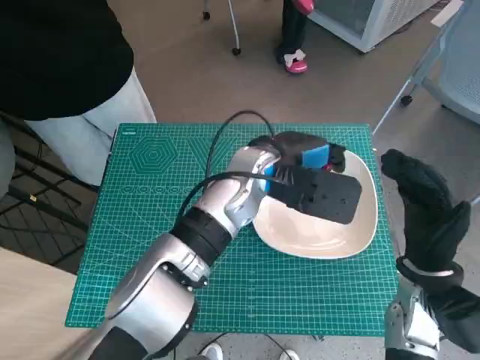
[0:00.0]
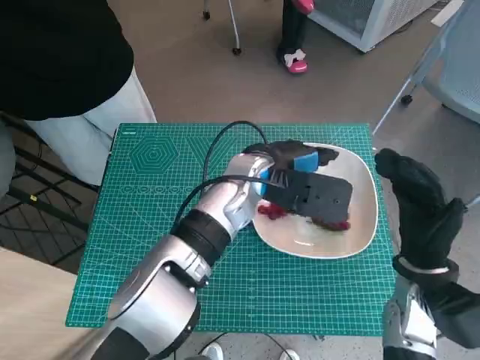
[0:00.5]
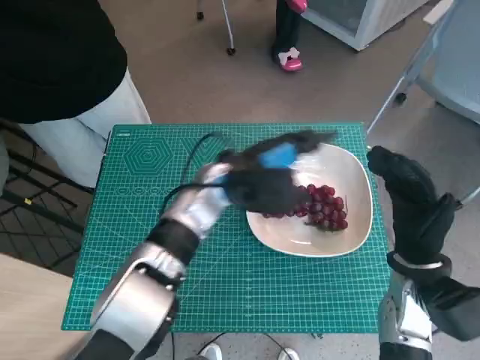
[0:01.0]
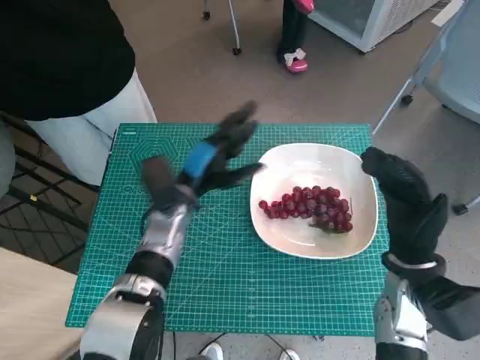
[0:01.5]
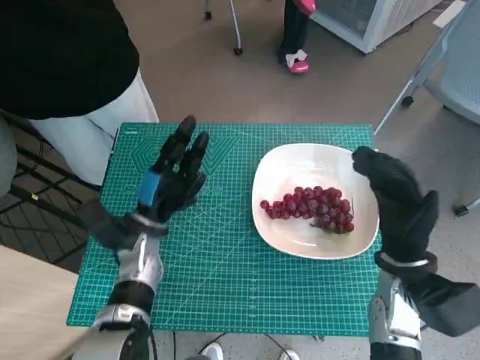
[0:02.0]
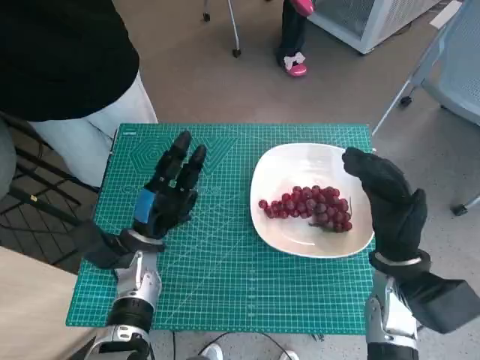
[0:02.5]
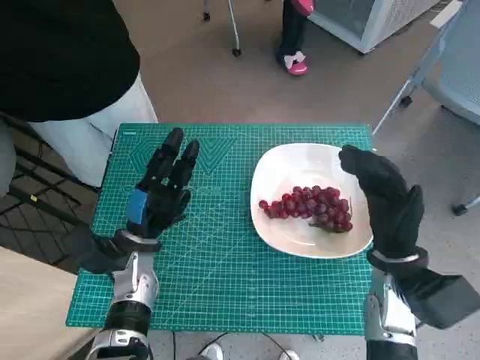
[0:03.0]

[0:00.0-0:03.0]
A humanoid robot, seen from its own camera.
Task of the whole recording: Pick up the grapes and put them on the plate.
0.0 to 1.5 s: The left hand heads to the left and downward, covering approximately 15 cm.
1.5 to 3.0 s: The left hand shifts roughly 10 cm to the left, backward and downward.

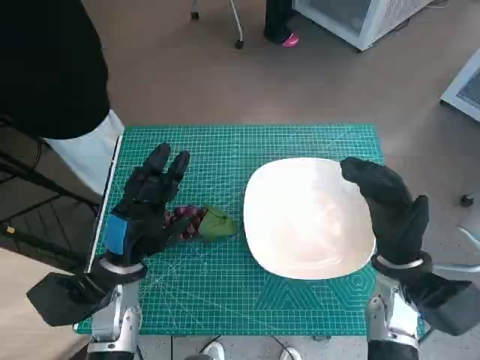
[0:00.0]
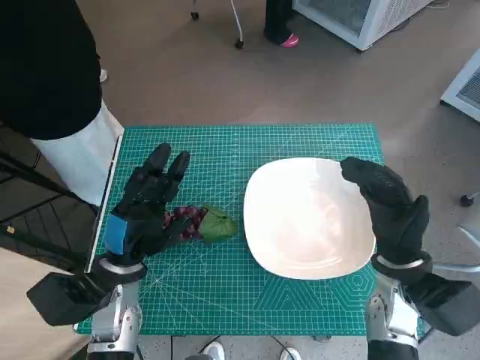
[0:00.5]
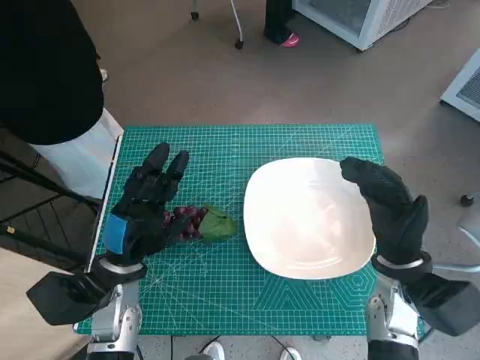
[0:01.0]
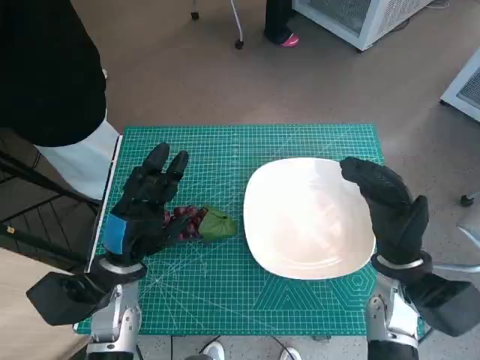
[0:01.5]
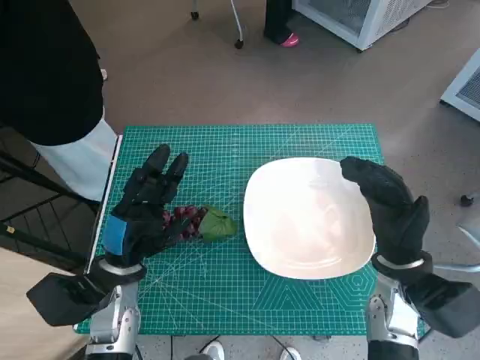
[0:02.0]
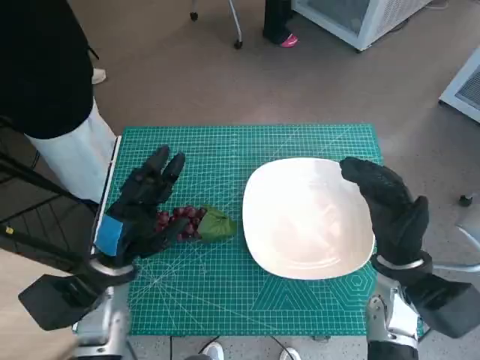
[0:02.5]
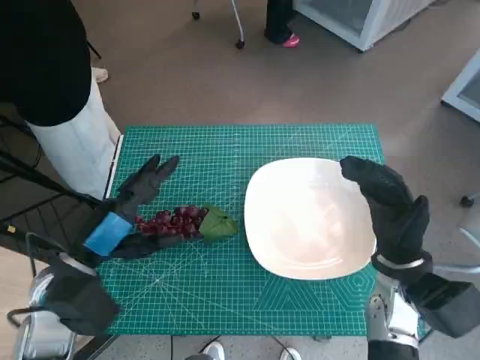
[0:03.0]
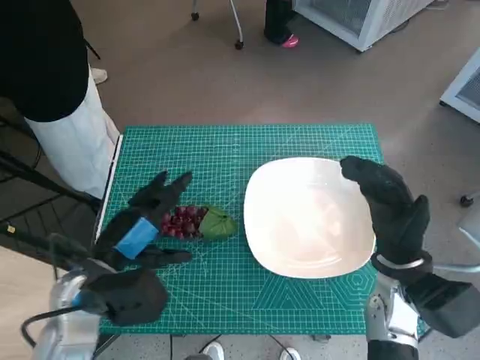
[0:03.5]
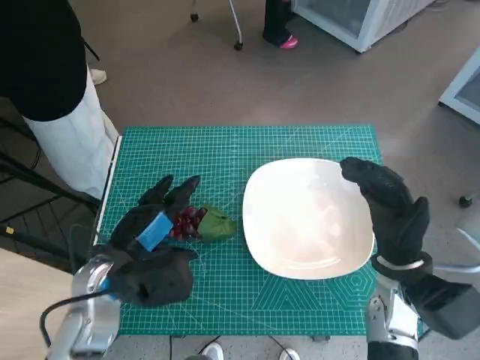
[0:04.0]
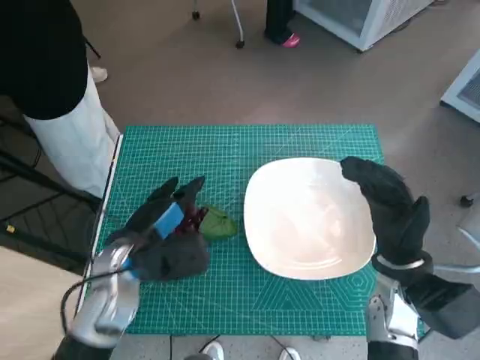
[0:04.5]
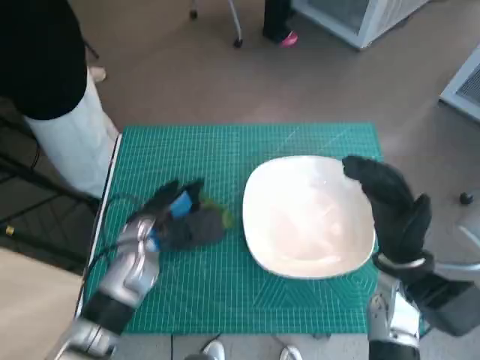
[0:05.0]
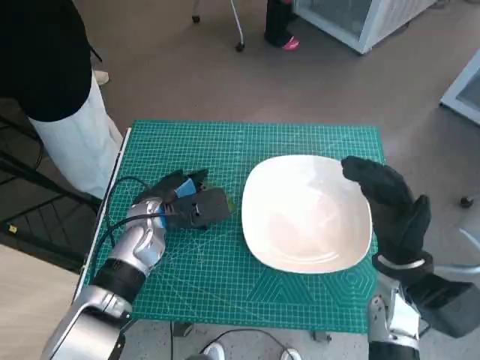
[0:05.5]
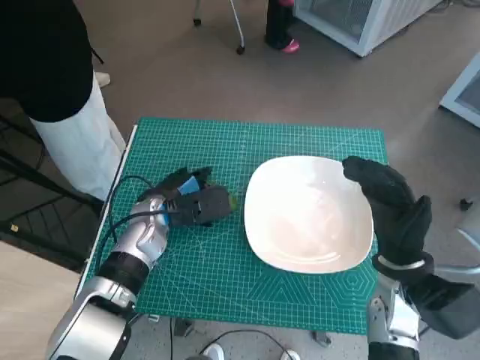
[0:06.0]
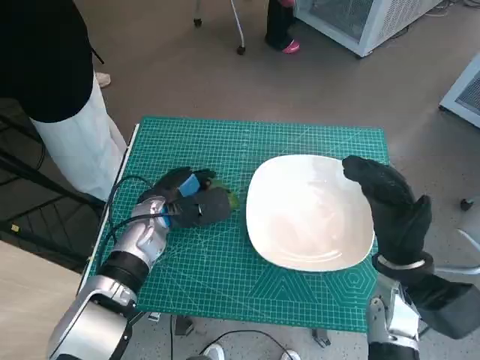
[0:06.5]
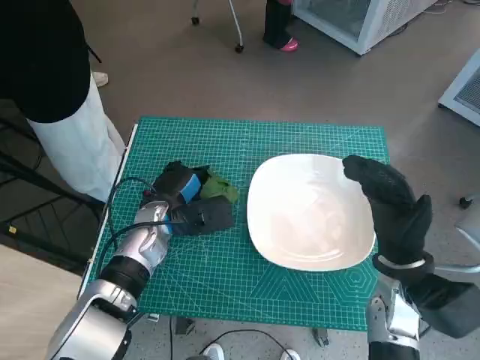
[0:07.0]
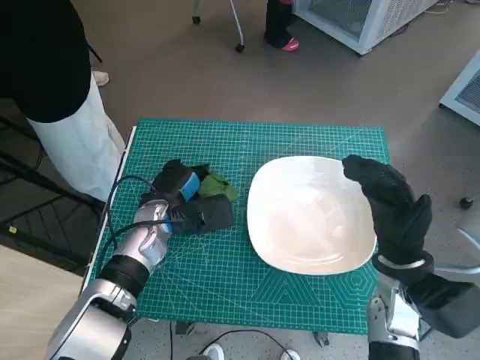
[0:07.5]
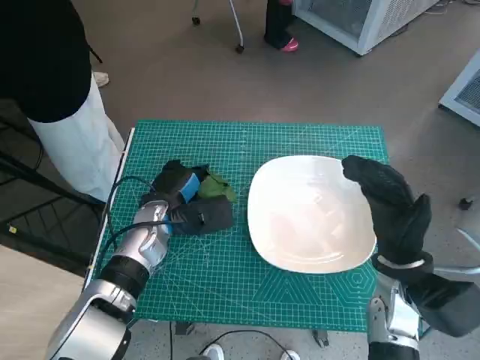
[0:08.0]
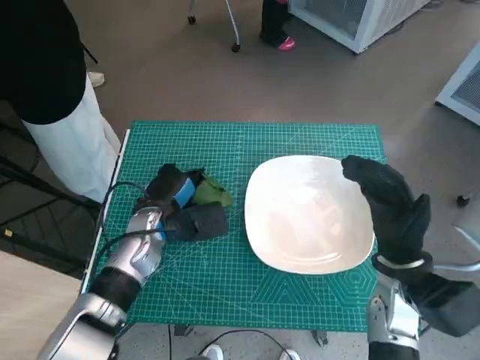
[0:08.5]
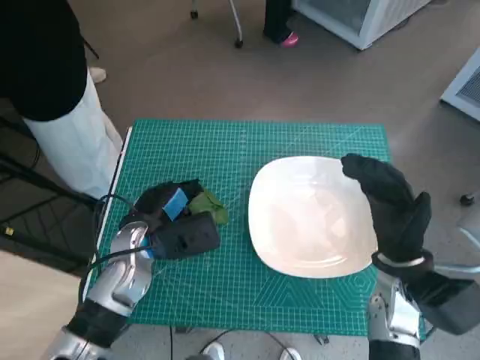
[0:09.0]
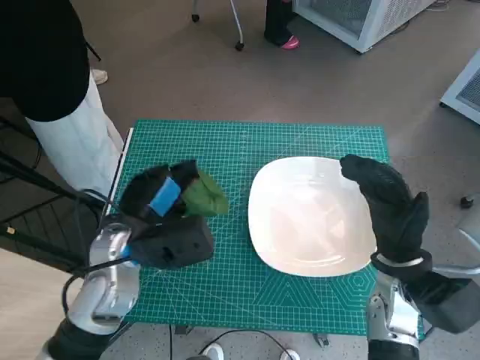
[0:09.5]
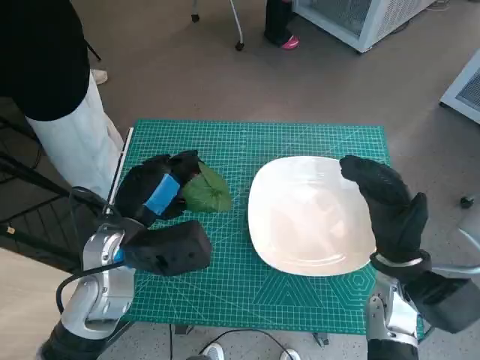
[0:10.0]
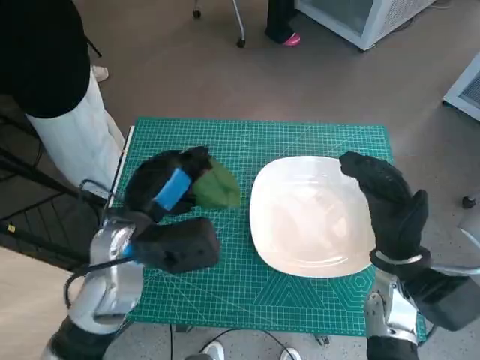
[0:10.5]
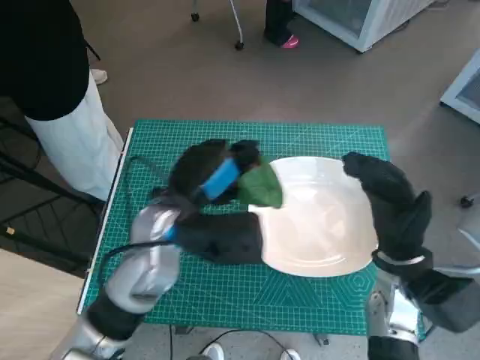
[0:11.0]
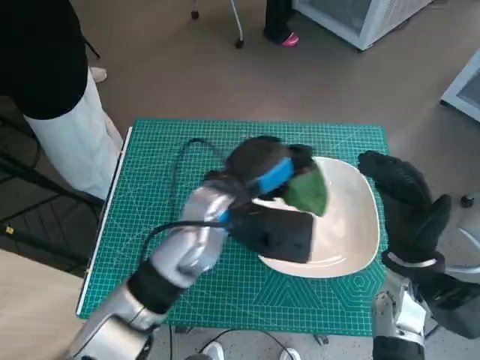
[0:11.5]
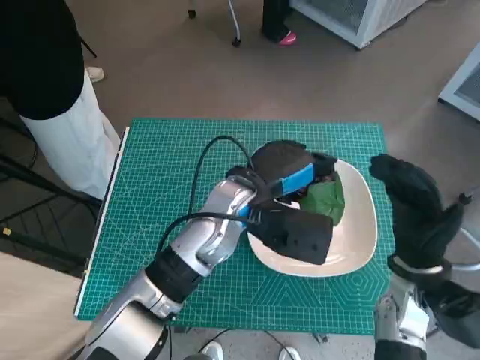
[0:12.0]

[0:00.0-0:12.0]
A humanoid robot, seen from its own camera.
Task of the whole recording: Pick up the grapes and put them on the plate.
Step, 0.0 to 8.5 s: Grasp the grapes with left hand.
2.0 to 4.0 s: The left hand is displaced upward by roughly 5 cm.
4.0 to 6.0 s: The left hand shifts roughly 10 cm forward.
6.0 to 8.0 s: The hands move only a little.
8.0 to 10.0 s: The left hand heads upward and backward, covering approximately 10 cm.
10.0 to 12.0 s: The left hand goes roughly 15 cm to the right and forward.

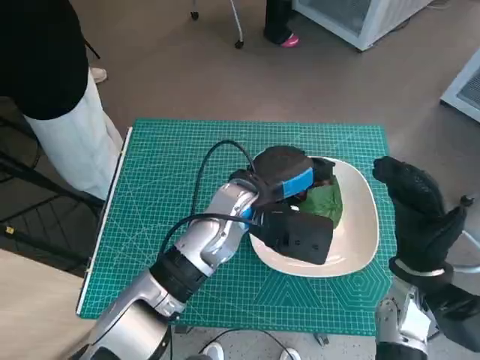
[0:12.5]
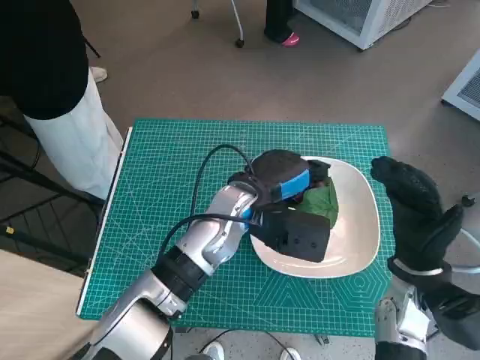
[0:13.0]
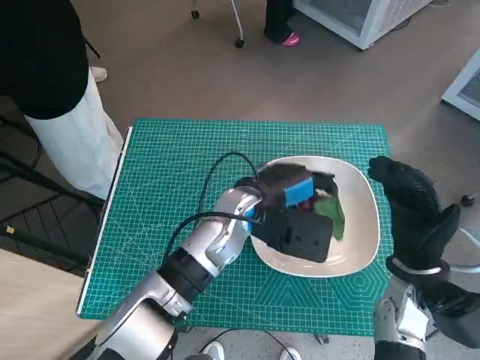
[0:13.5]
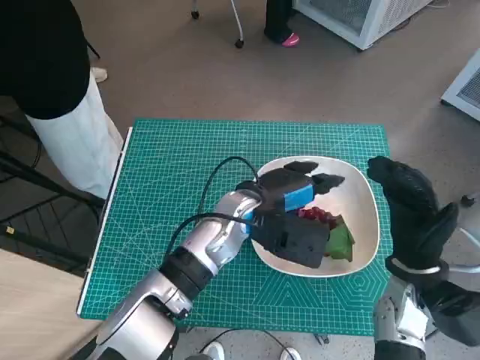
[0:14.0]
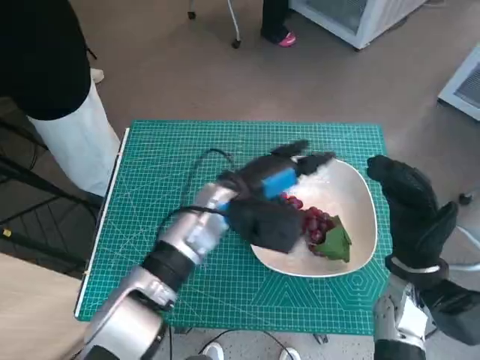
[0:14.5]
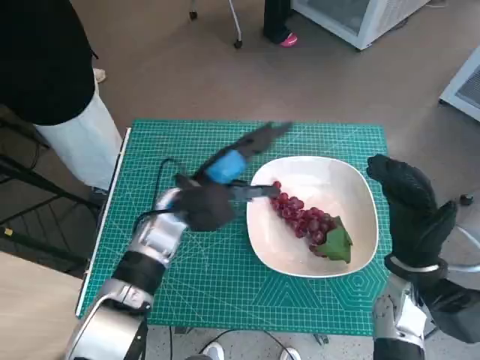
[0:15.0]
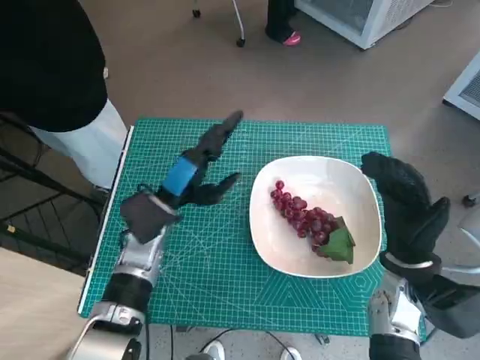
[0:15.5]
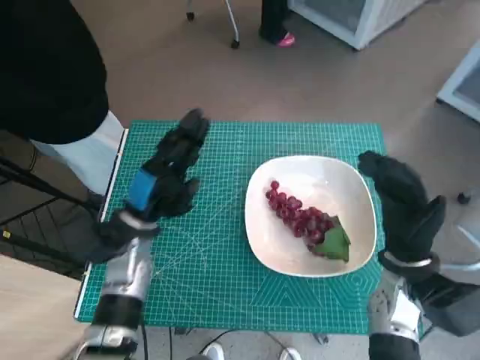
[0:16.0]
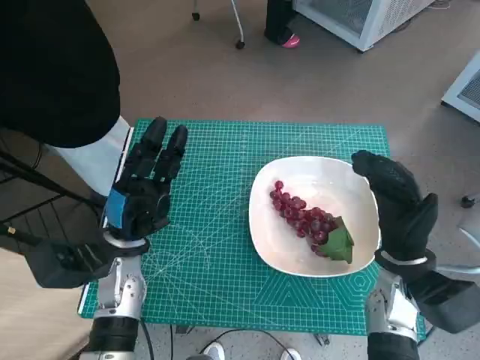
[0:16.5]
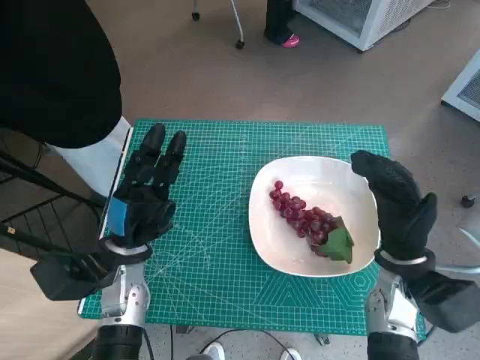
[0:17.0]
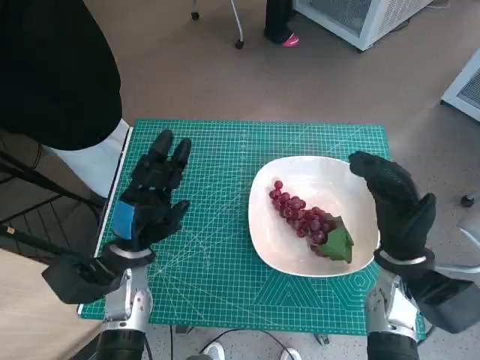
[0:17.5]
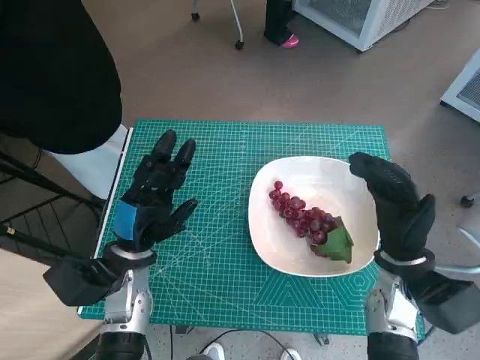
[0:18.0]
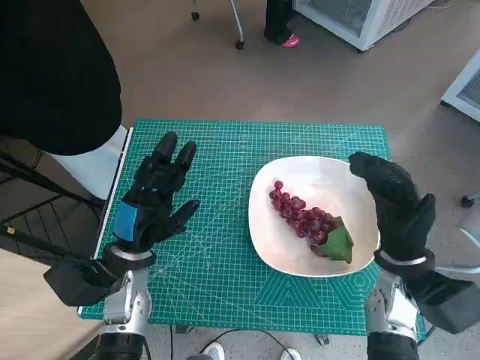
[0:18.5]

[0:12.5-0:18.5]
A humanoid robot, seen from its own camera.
Task of the whole recording: Pick up the grapes and put them on the plate.
12.5 to 14.5 s: The hands move only a little.
14.5 to 16.5 s: The left hand shifts approximately 15 cm to the left.
16.5 to 18.5 s: There are only small adjustments of the hands.

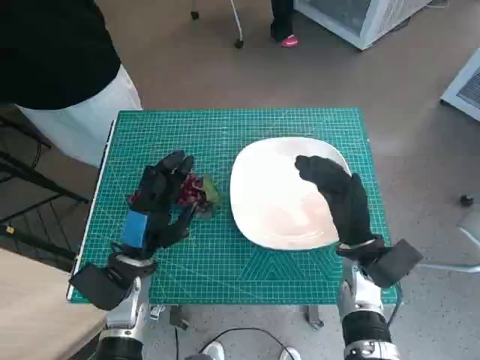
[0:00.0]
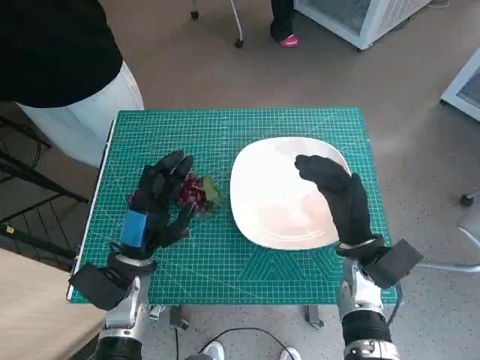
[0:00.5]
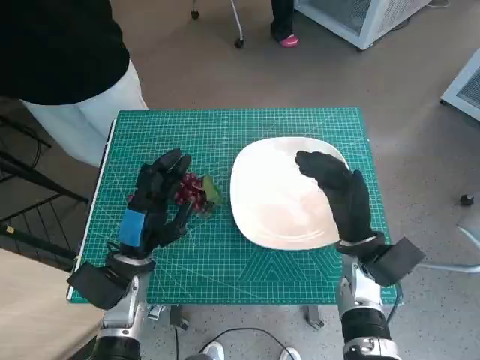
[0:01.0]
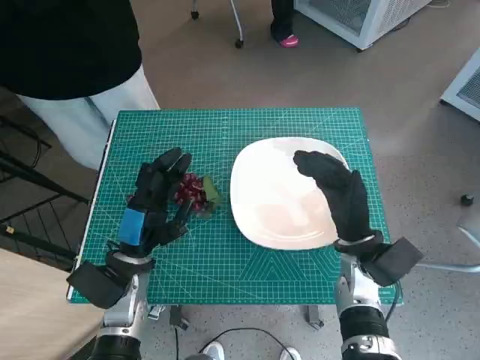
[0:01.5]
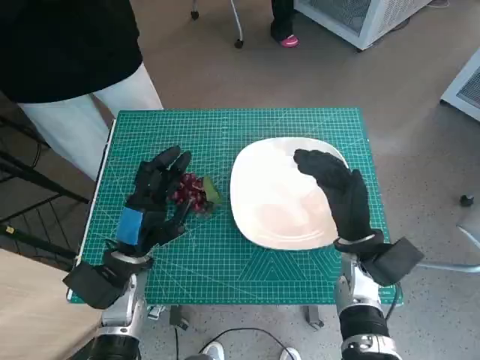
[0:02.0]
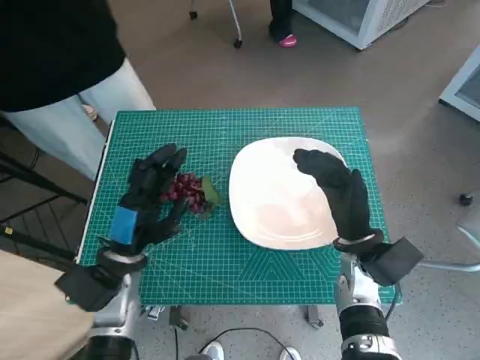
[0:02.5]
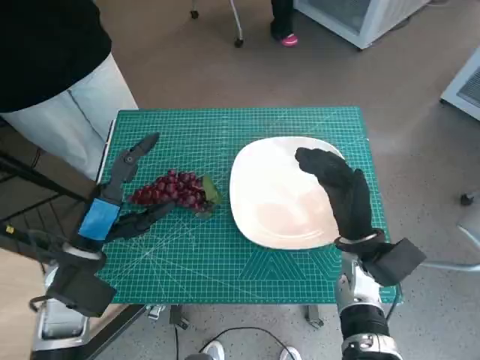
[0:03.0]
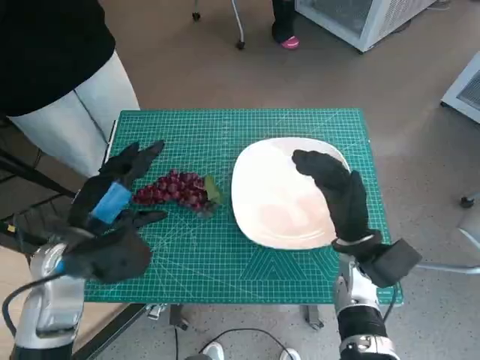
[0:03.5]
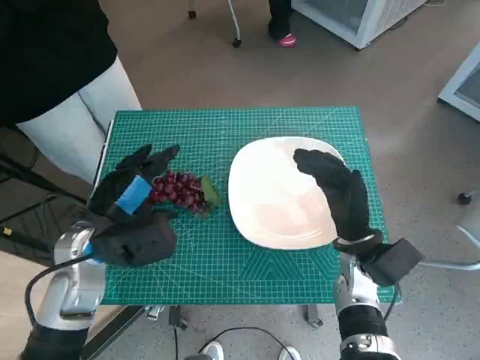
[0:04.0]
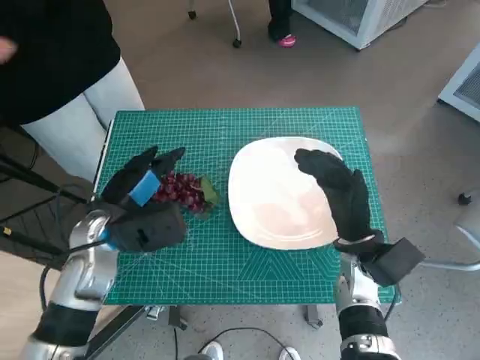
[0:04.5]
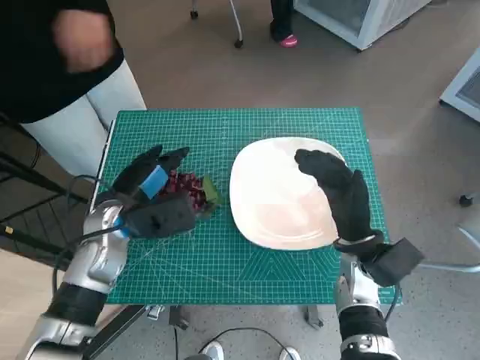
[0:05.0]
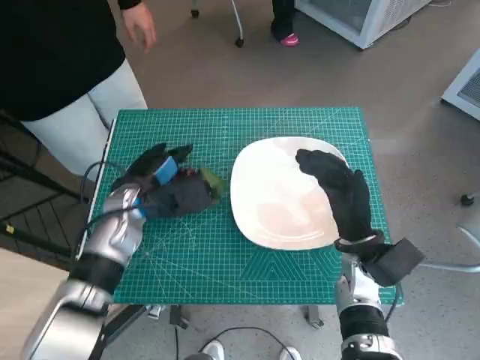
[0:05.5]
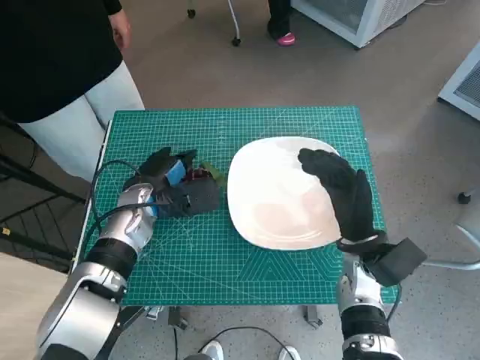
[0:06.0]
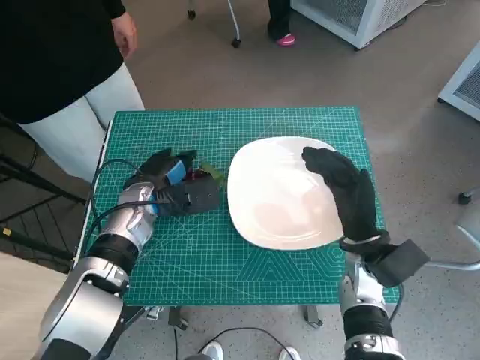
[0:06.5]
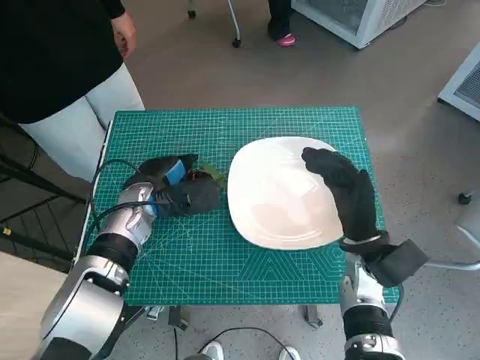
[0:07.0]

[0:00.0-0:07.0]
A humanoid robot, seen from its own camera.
Task of the whole recording: Pick up the grapes and put them on the plate.
2.0 to 3.5 s: The left hand moves upward, roughly 10 cm.
3.5 to 5.0 s: The left hand goes some 5 cm forward.
5.0 to 7.0 s: The left hand changes place by approximately 5 cm.
